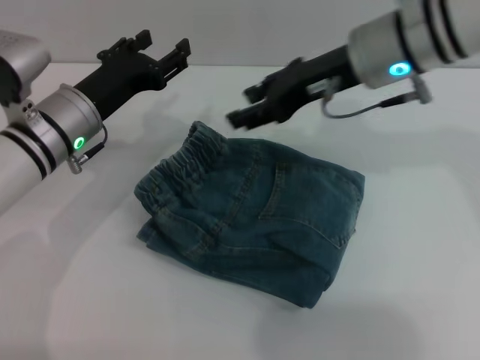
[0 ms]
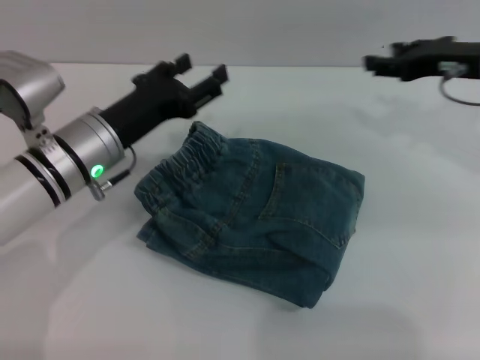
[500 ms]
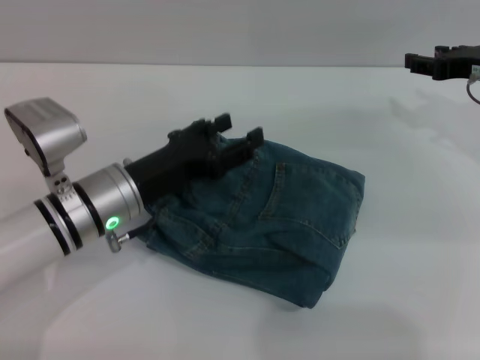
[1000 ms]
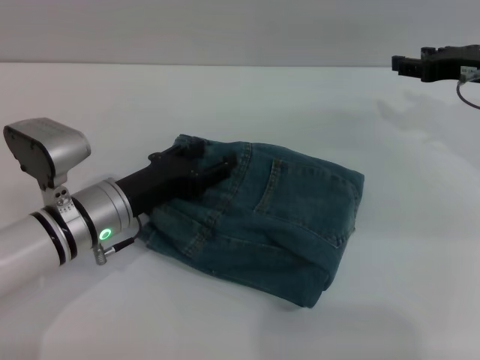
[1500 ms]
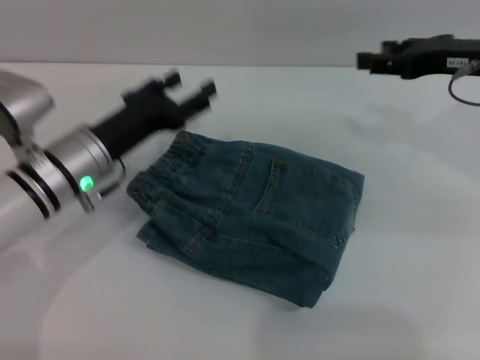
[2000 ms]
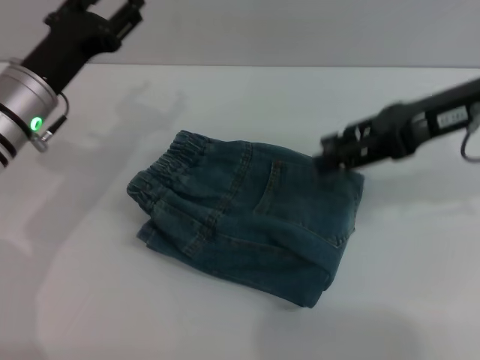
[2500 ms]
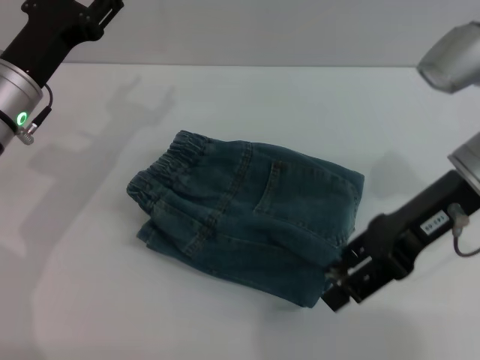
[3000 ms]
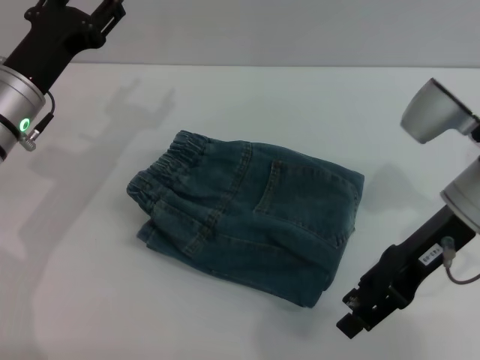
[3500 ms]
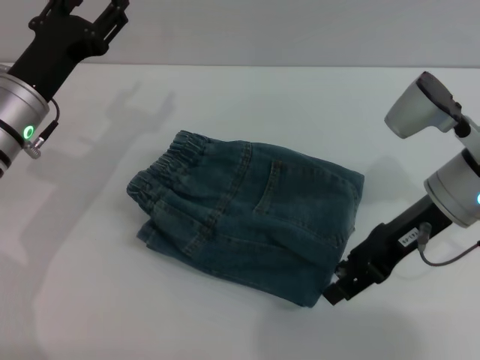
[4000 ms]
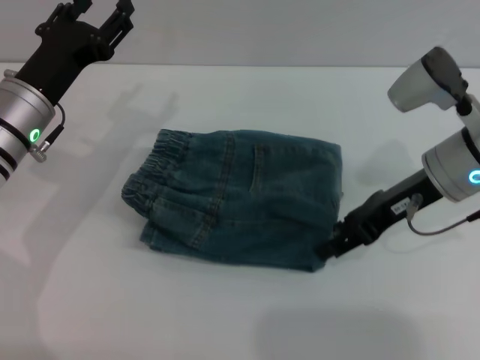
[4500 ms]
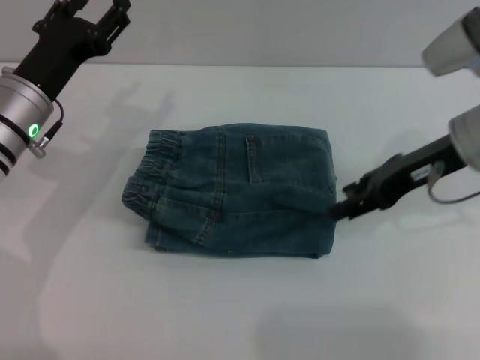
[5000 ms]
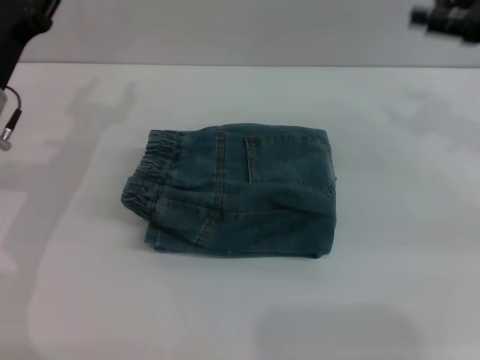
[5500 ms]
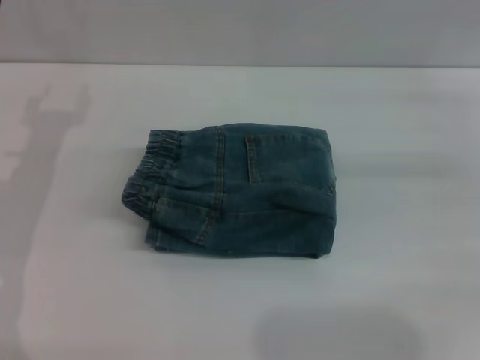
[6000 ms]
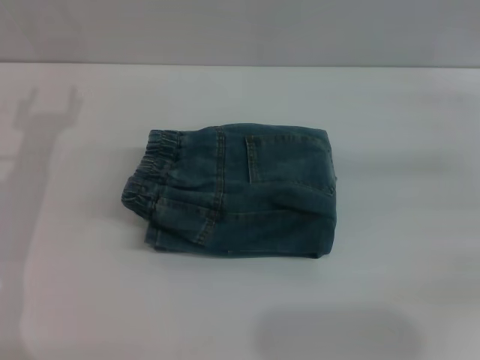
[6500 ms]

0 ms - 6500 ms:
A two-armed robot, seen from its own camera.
Step, 0 ms - 4500 ms: Place the folded trousers onto the center area with the right grippers.
0 ms - 2000 ms: The right gripper travels to the right by roughly 15 cm.
2000 ms - 4500 ms: The left gripper changes place by roughly 5 cm, while the right gripper shifts roughly 10 cm to the left and downward.
4500 ms - 6500 ms: The left gripper is displaced to the left by about 5 cm. The right gripper travels to the right by about 15 cm.
